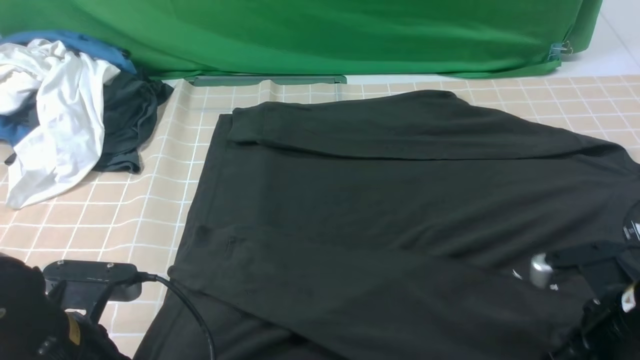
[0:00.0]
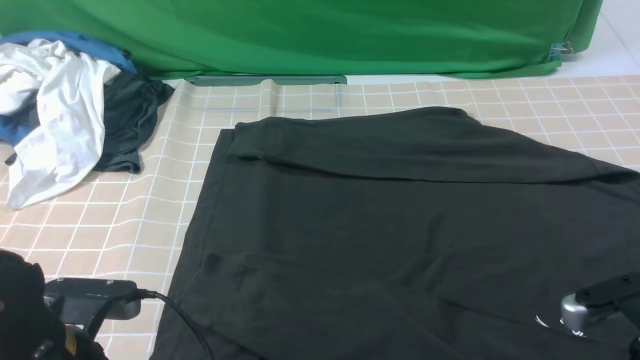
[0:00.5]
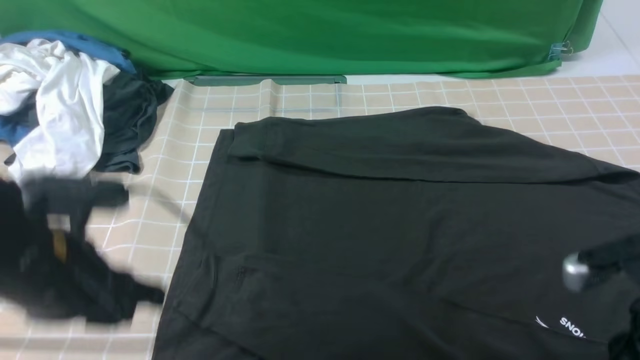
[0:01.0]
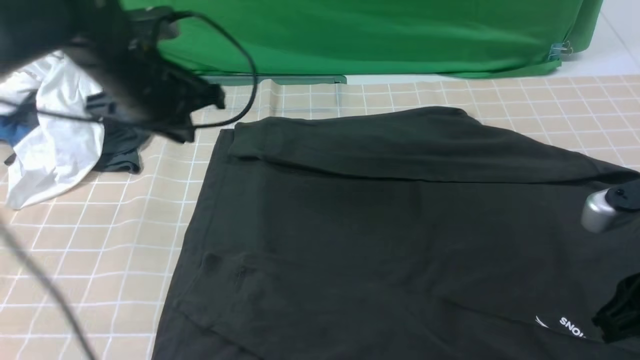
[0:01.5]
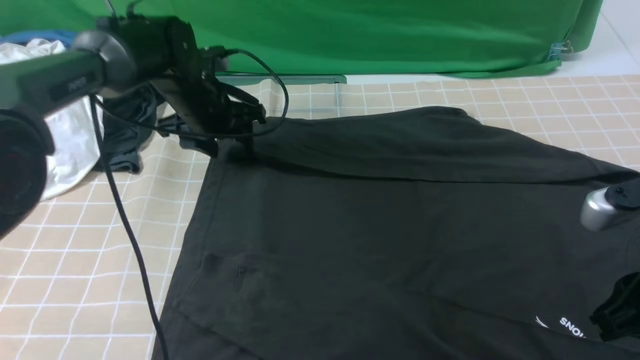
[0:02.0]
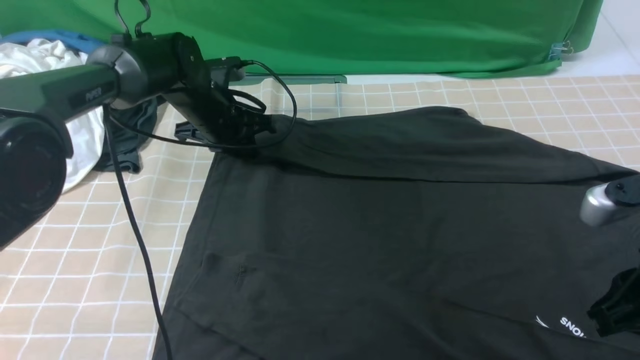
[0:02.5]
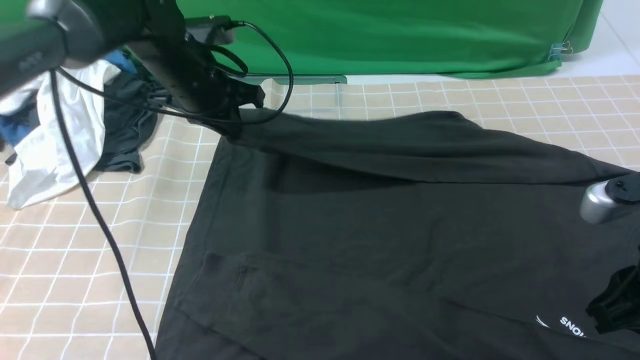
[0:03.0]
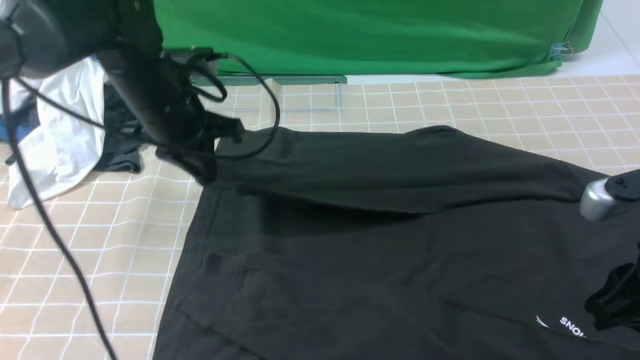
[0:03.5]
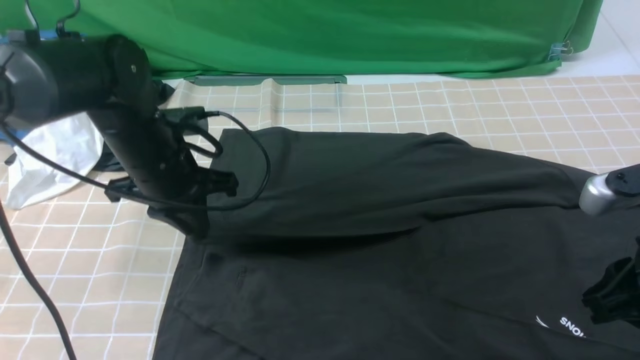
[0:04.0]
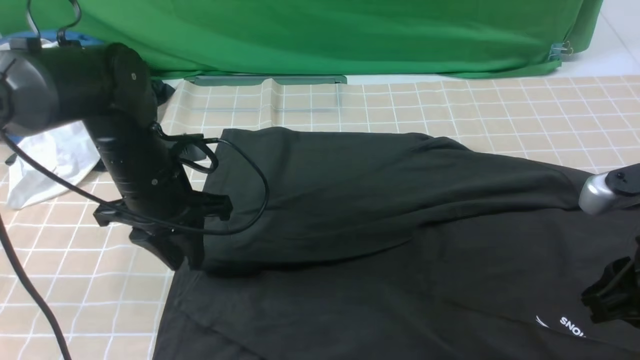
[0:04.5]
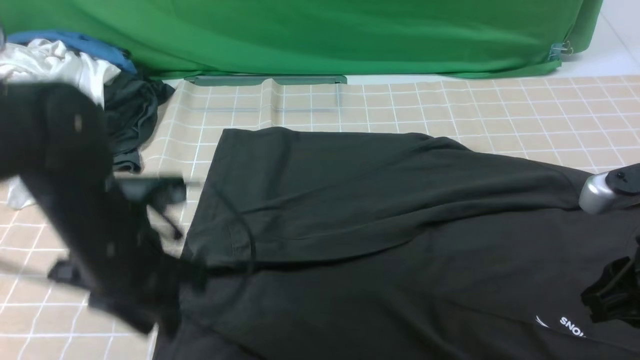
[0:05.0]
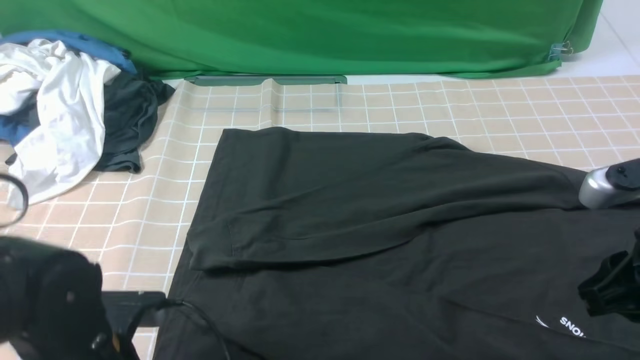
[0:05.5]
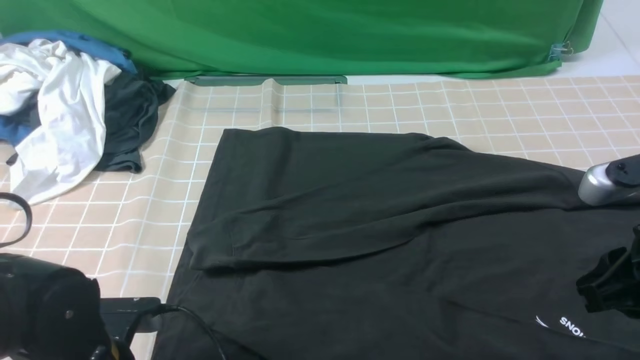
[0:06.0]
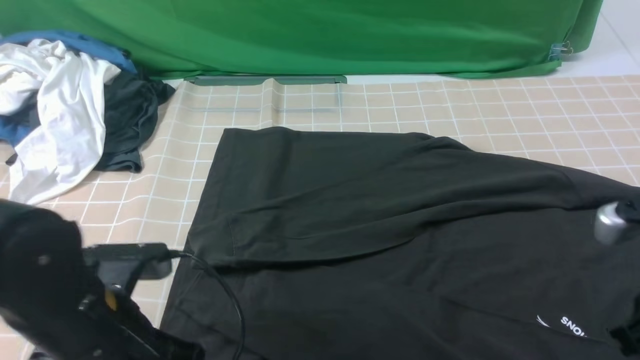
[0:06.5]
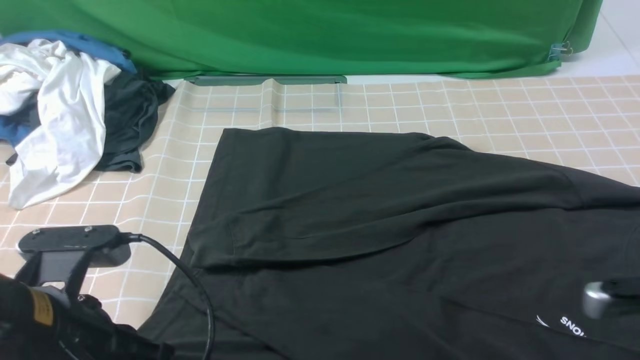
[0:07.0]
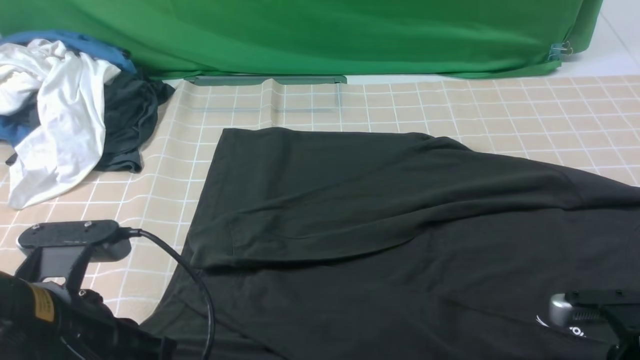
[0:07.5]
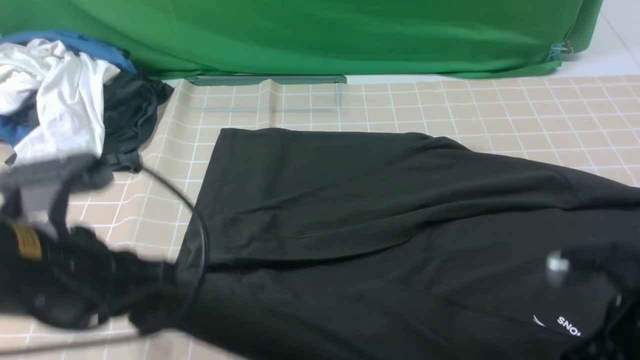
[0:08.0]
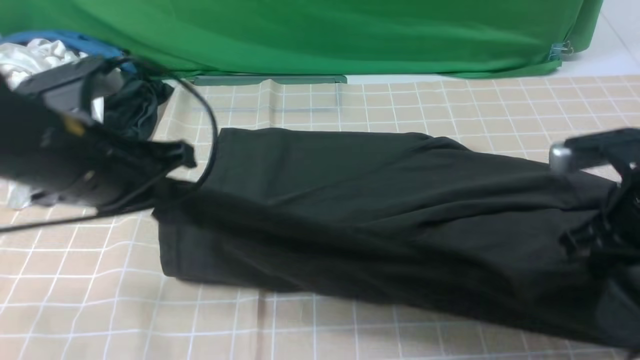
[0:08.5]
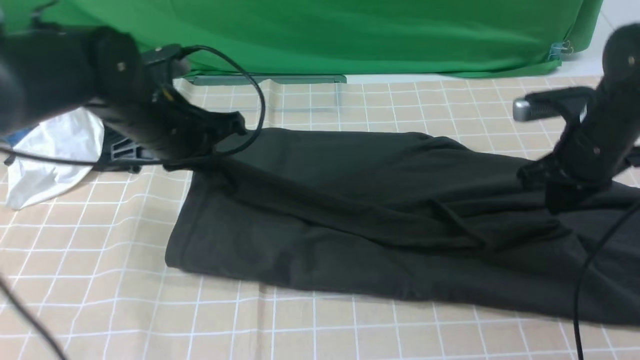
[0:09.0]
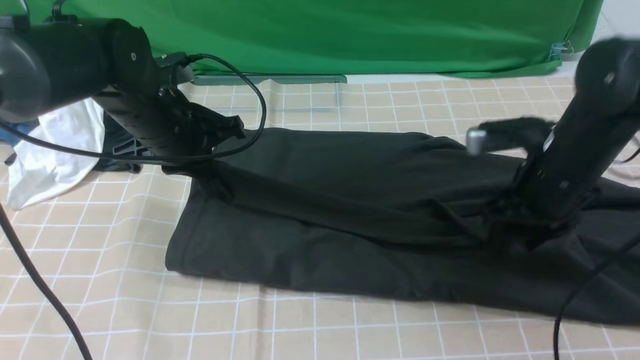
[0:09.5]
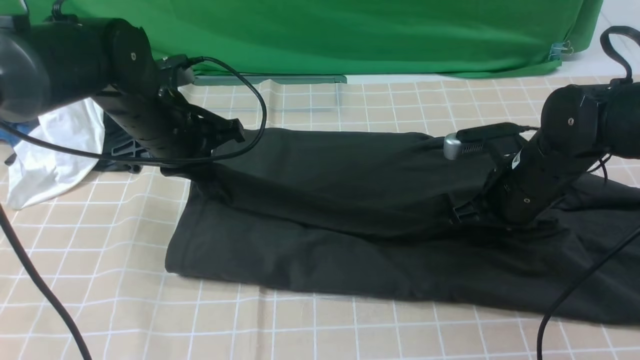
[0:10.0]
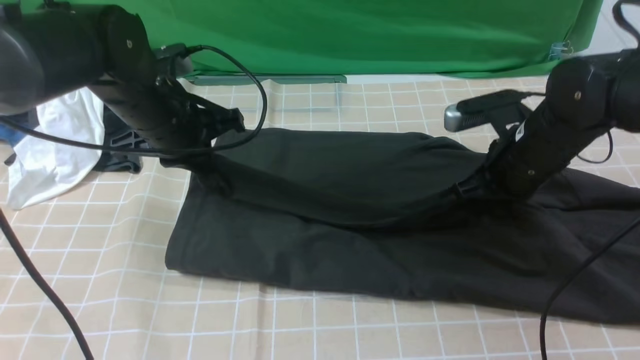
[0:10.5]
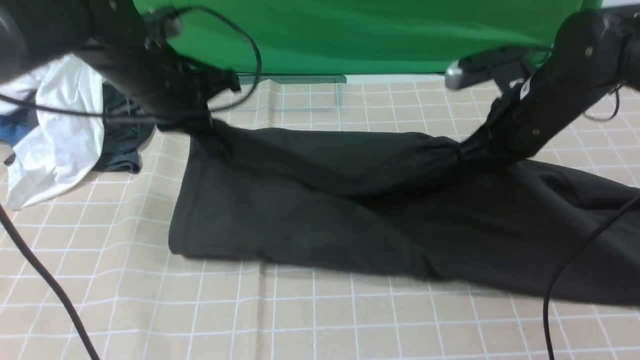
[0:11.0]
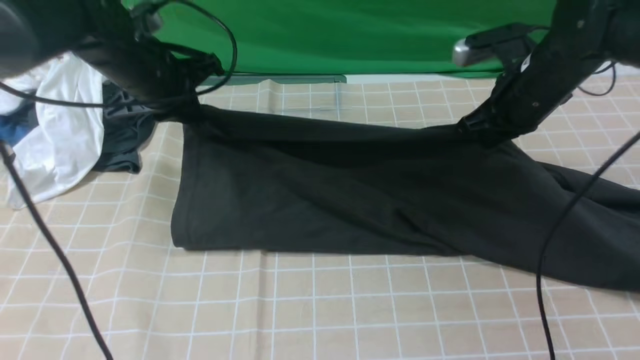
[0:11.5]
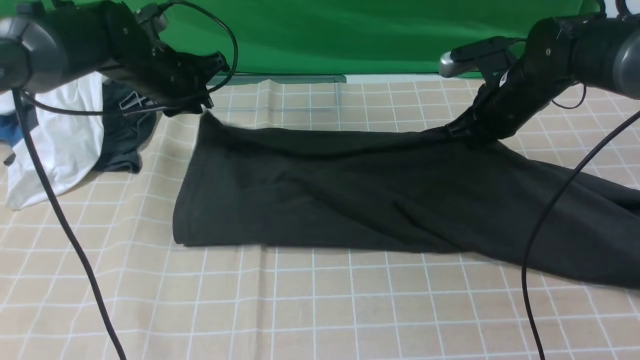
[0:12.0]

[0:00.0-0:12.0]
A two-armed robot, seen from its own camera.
Step, 0:00.0 to 0:02.5: use the left arm to clamp the cuff farthest from it.
Step, 0:03.0 to 0:04.5: use the left arm to drag and drop the cuff onto the cuff closest to the left arm.
Step, 0:05.0 to 0:07.5: use both arms simultaneously to clamp the lower edge of the clothing fabric.
0:00.0 to 0:02.0: The right gripper is displaced upward by some 10 cm, while the left gripper goes roughly 35 cm forward, and opens its fingers.
0:02.0 to 0:04.0: The left gripper goes roughly 10 cm backward, and closes its fingers.
0:04.0 to 0:06.0: The left gripper heads backward, covering roughly 20 cm, and opens, then closes once more.
0:06.0 to 0:08.0: The right gripper moves downward, approximately 5 cm, and opens, then closes once more, while the left gripper is displaced upward by some 15 cm.
0:08.0 to 0:10.0: The two grippers go some 20 cm forward. The right gripper opens, then closes again.
0:10.0 to 0:12.0: The grippers both shift forward by about 10 cm.

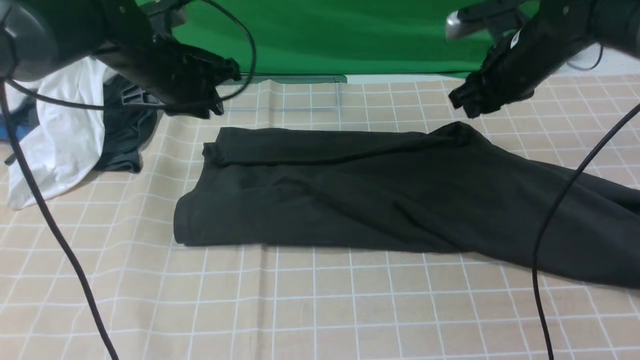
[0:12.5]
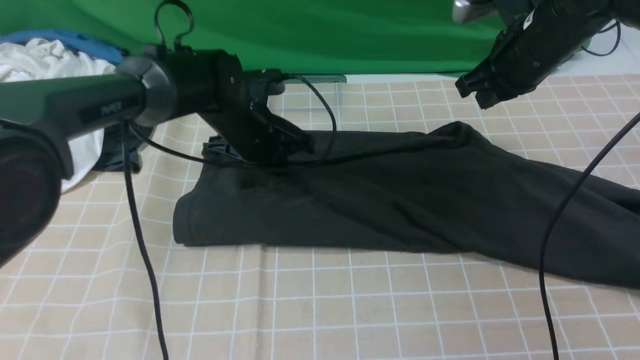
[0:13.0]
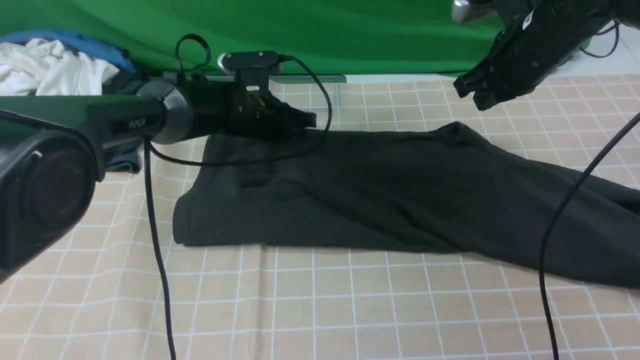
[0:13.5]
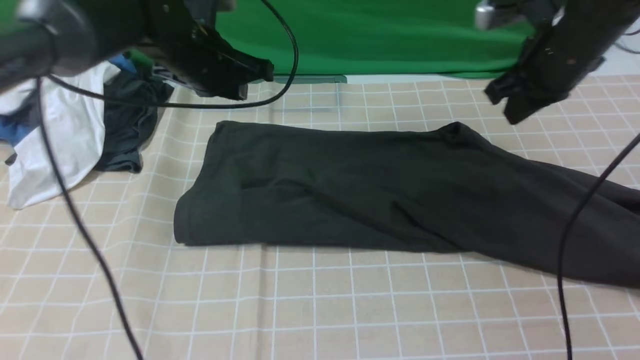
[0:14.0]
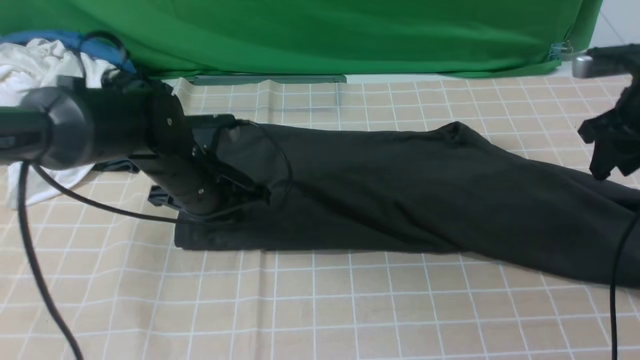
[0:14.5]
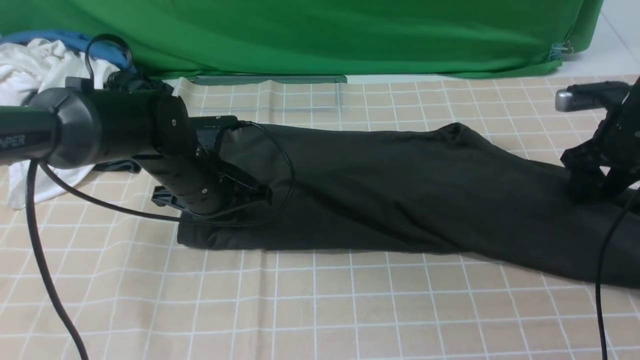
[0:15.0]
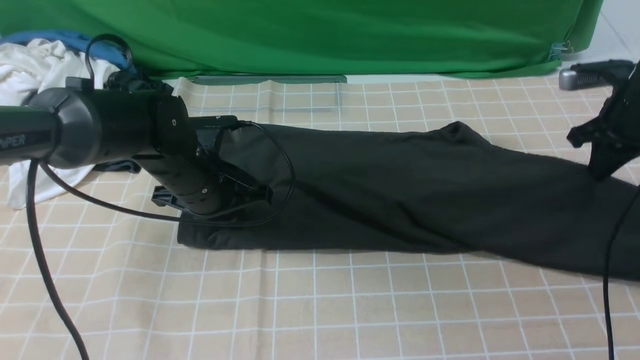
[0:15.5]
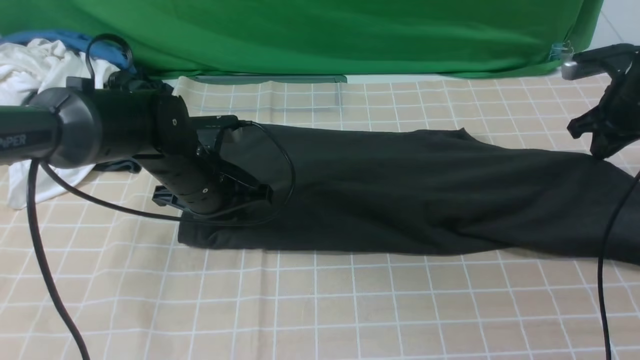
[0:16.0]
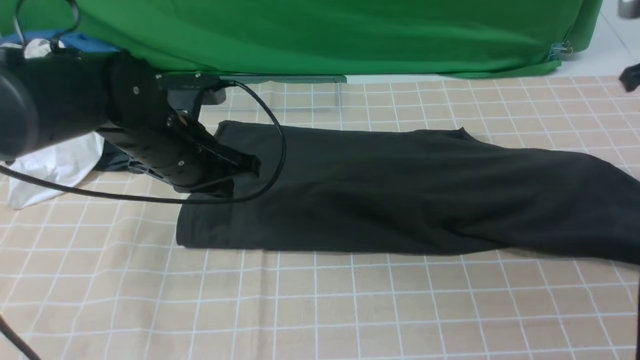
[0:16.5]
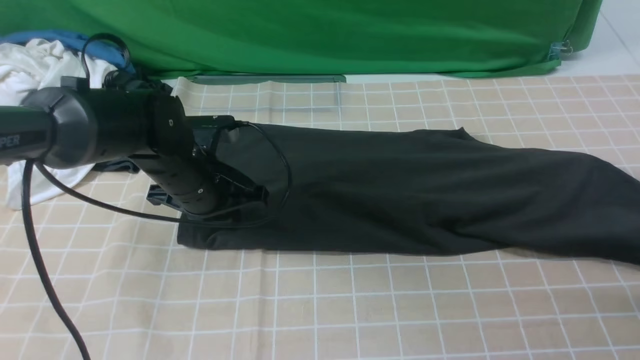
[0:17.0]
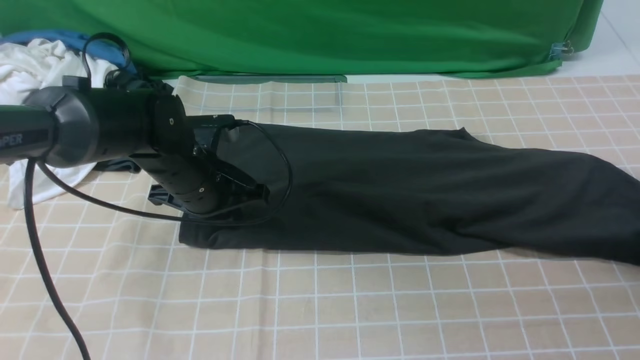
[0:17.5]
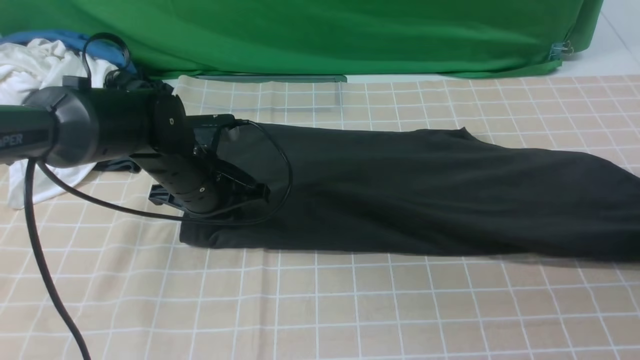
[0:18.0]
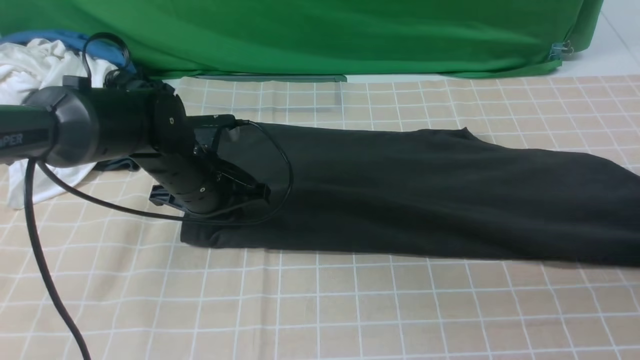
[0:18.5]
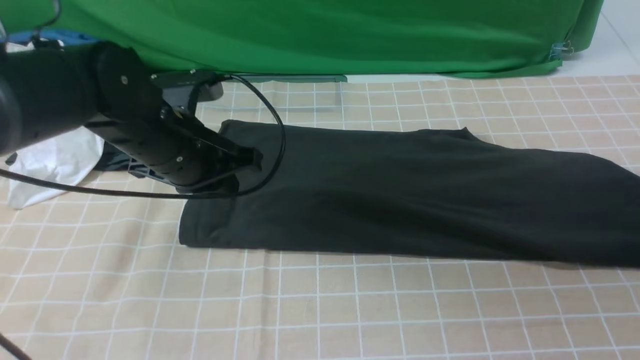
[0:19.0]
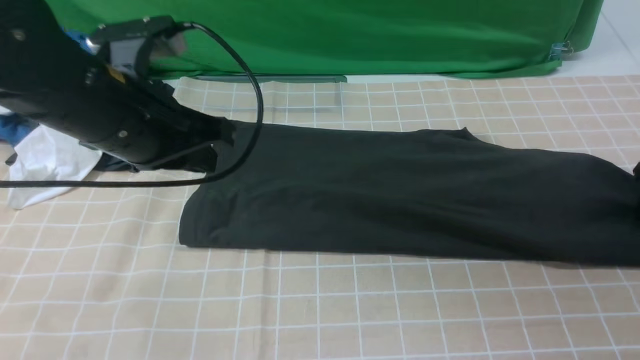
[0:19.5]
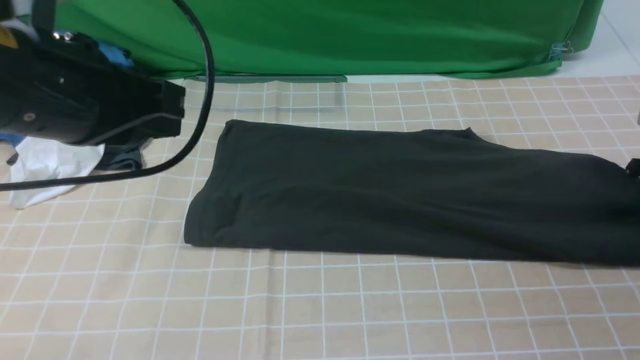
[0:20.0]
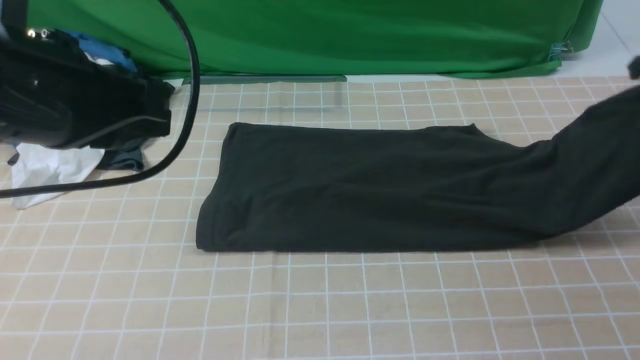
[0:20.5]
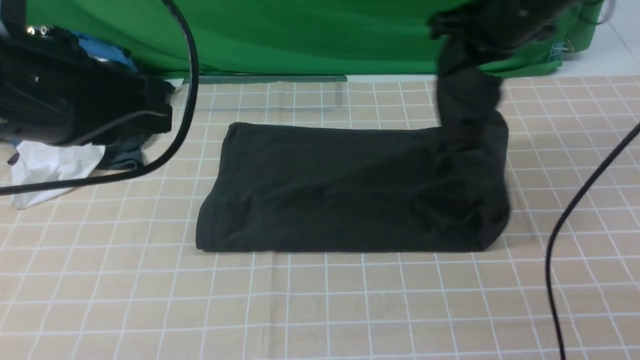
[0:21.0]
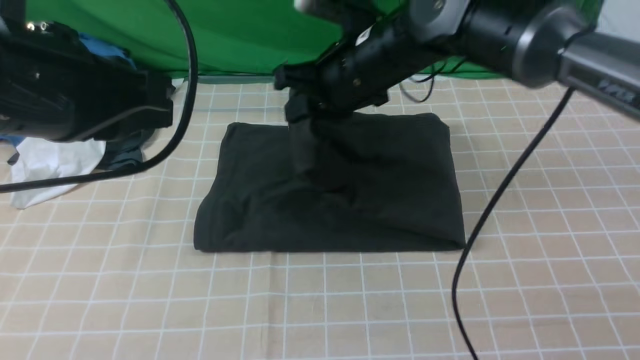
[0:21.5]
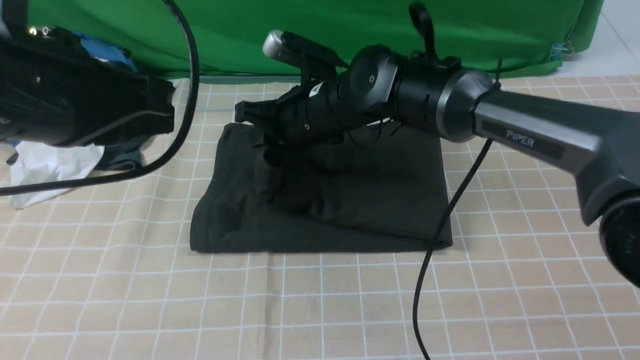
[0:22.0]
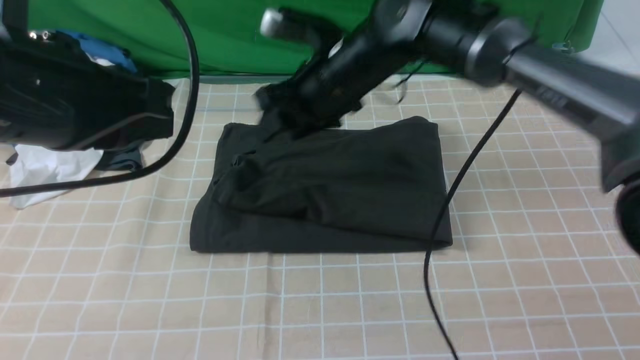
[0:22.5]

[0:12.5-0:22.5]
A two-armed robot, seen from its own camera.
Step, 0:12.5 to 0:19.5: use the right arm to clamp the right edge of the fabric.
Step, 0:20.5 to 0:22.0: use the right arm to drag the right edge of the fabric to the left and folds it over the left edge.
0:12.5 to 0:14.5: The left gripper is displaced backward and downward by some 10 cm; the right gripper goes approximately 10 cm to the right.
0:14.5 to 0:16.5: The right gripper moves upward, roughly 5 cm, and closes its fingers.
0:16.5 to 0:18.5: The right gripper moves downward and to the right, roughly 10 cm.
0:18.5 to 0:20.5: The left gripper is displaced upward and backward by approximately 25 cm, while the right gripper goes some 15 cm to the left, upward and forward, and opens and closes again.
0:20.5 to 0:22.5: The right gripper moves to the left, approximately 35 cm, and opens.
